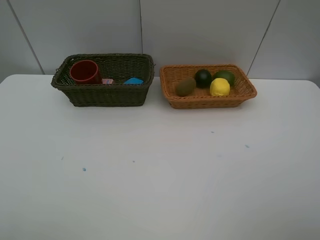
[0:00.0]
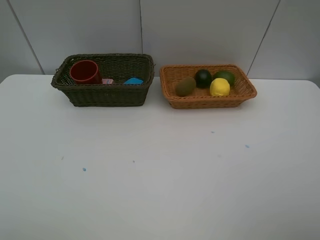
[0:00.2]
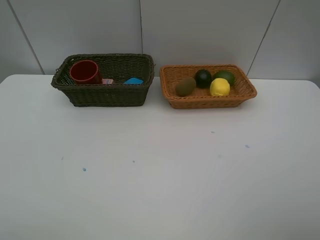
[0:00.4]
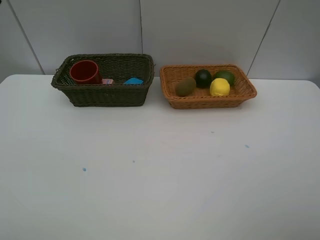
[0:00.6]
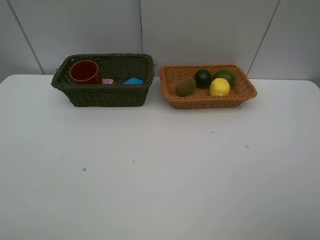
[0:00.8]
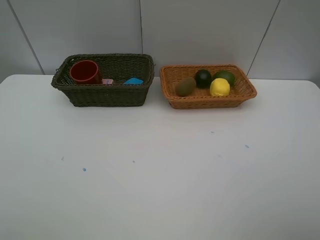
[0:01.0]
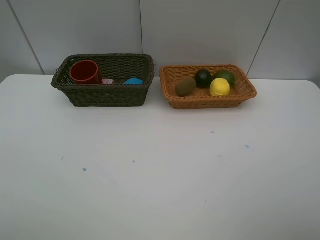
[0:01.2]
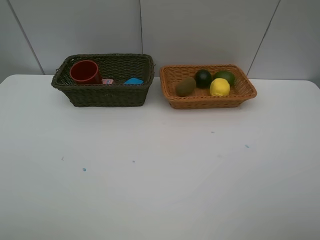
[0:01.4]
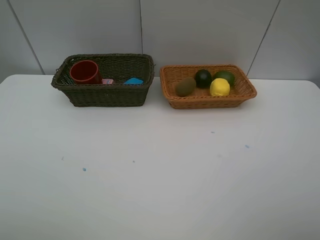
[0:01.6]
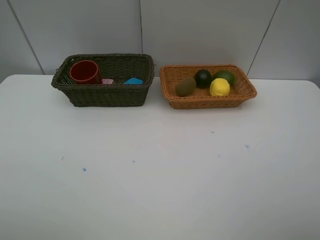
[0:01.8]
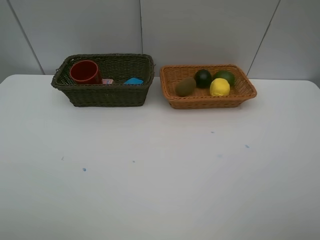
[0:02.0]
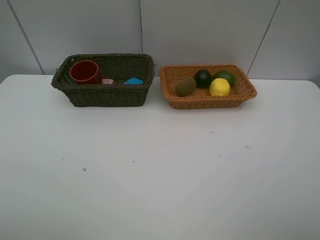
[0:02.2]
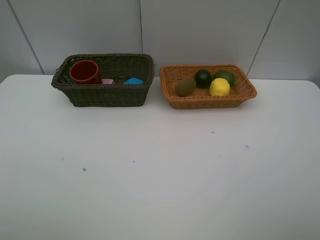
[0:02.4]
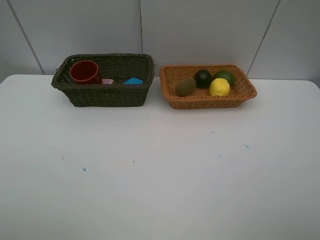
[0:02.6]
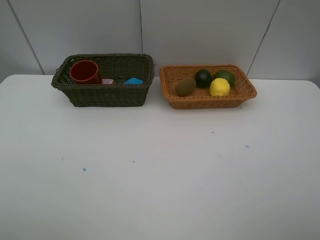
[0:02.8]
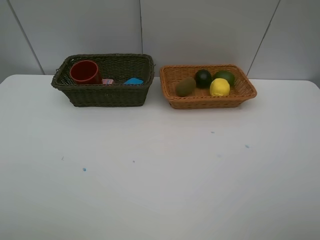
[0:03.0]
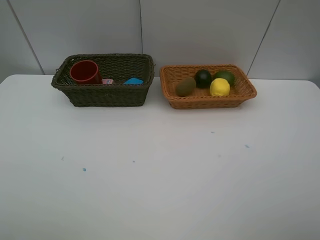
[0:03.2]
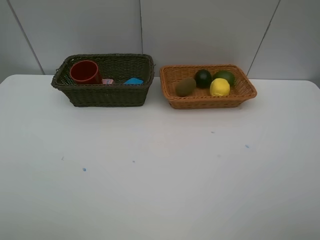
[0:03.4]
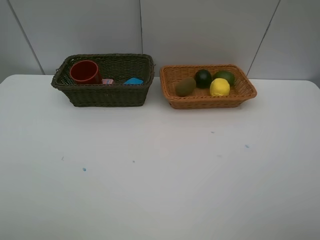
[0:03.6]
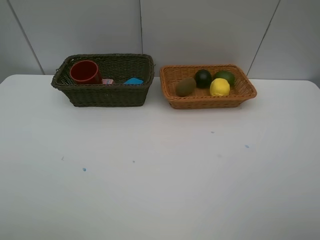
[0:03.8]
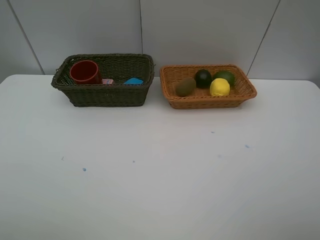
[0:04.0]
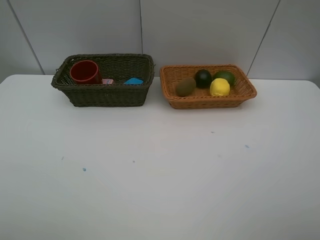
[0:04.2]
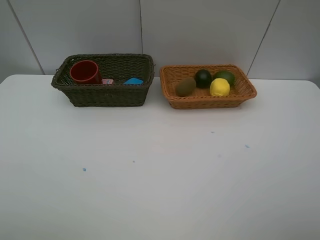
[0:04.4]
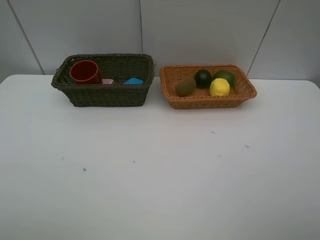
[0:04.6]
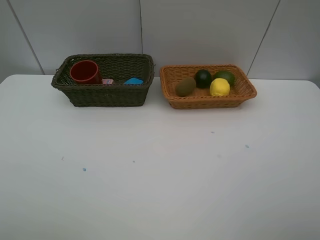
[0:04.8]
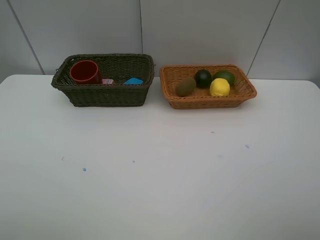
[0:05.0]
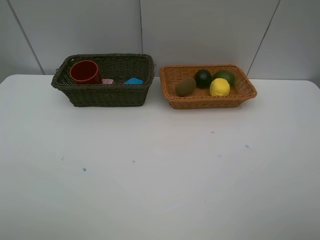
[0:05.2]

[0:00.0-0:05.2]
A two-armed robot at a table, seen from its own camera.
Task of the whole recording: Place multiple objects separately in different baskets.
3.4 to 5.2 s: Both grippers stay about where they are.

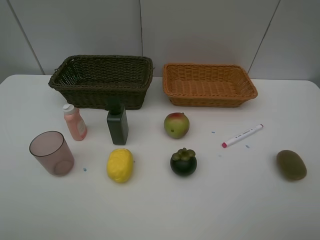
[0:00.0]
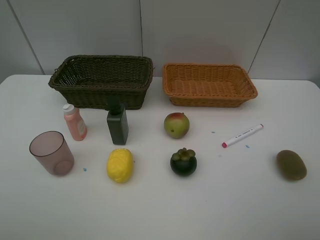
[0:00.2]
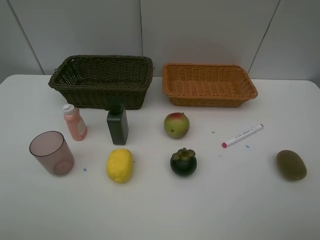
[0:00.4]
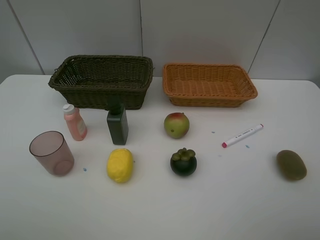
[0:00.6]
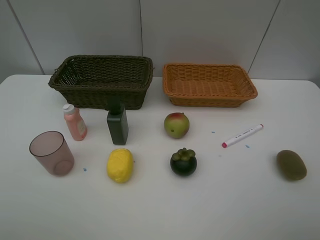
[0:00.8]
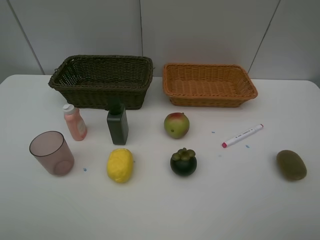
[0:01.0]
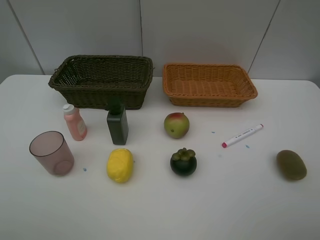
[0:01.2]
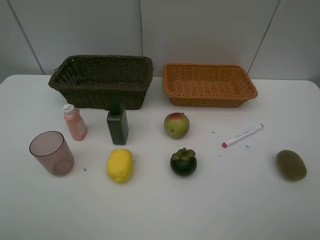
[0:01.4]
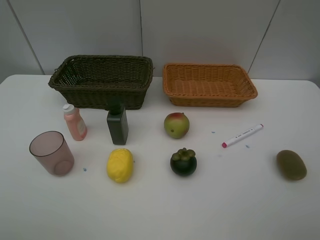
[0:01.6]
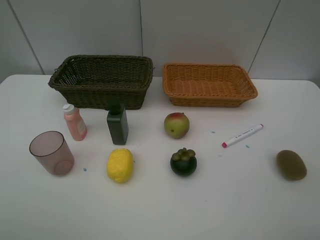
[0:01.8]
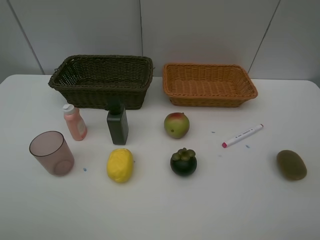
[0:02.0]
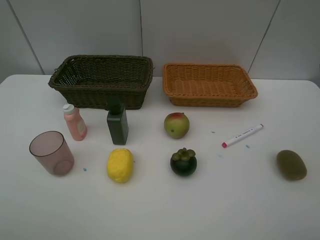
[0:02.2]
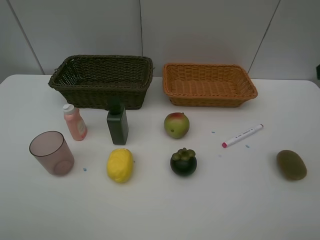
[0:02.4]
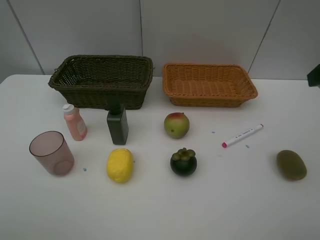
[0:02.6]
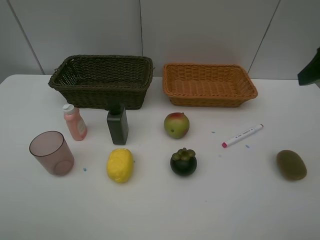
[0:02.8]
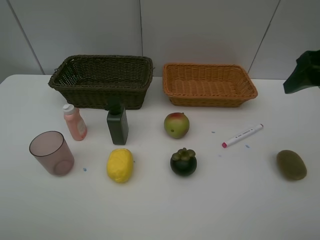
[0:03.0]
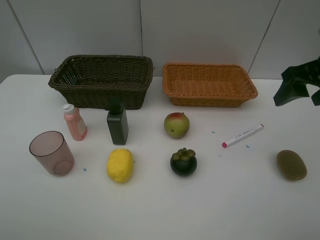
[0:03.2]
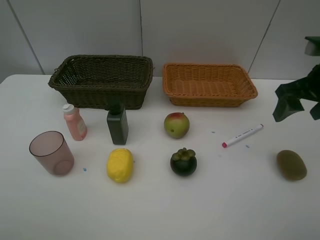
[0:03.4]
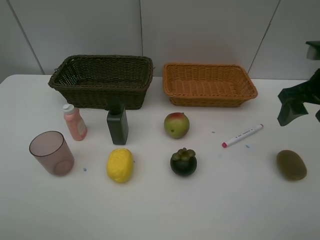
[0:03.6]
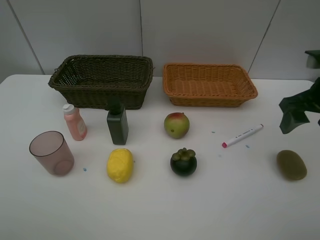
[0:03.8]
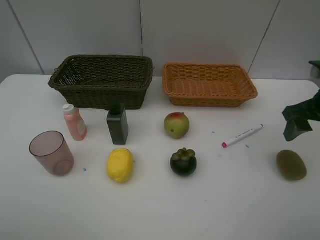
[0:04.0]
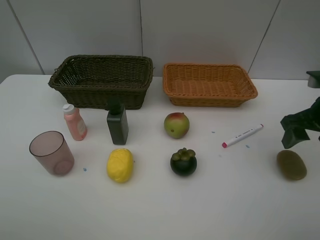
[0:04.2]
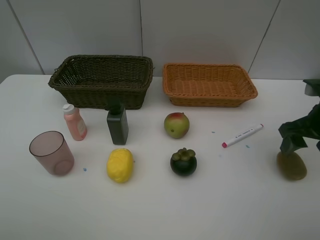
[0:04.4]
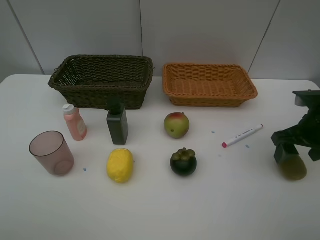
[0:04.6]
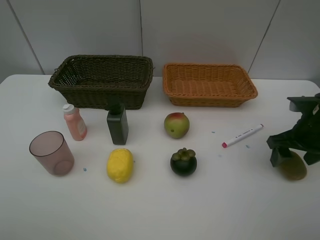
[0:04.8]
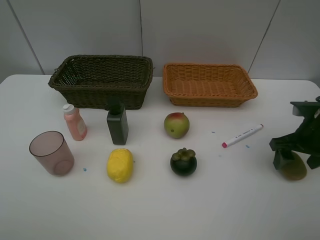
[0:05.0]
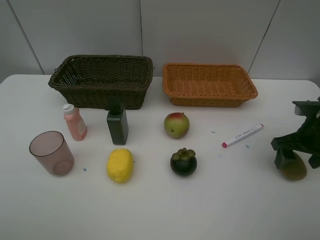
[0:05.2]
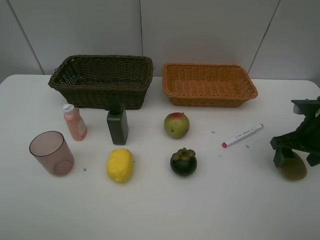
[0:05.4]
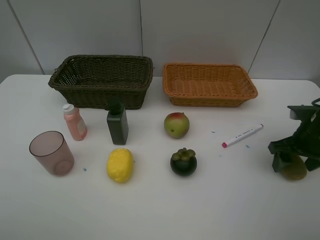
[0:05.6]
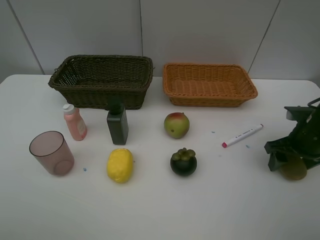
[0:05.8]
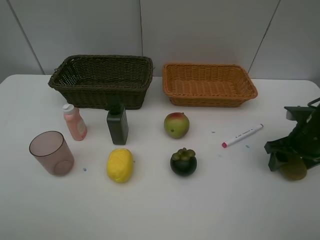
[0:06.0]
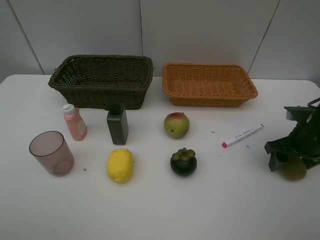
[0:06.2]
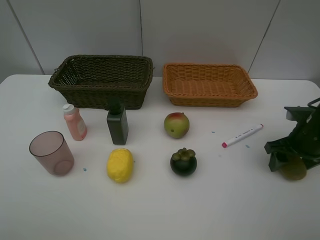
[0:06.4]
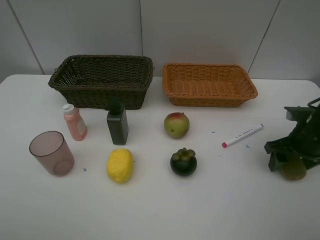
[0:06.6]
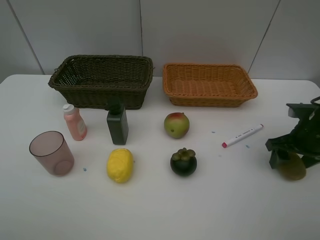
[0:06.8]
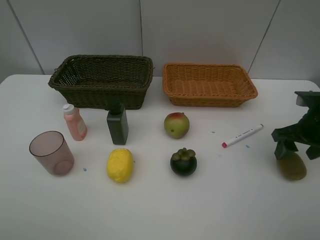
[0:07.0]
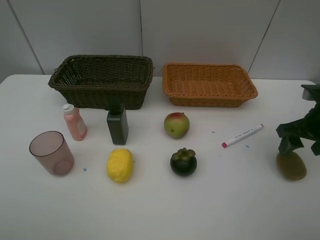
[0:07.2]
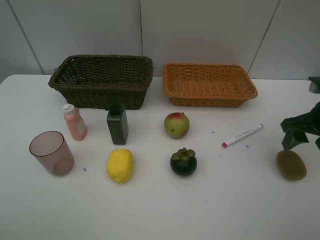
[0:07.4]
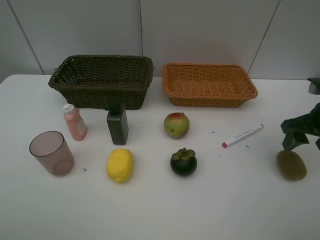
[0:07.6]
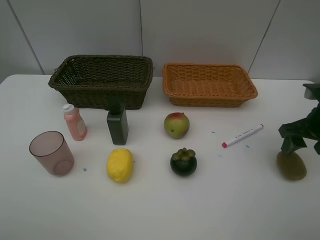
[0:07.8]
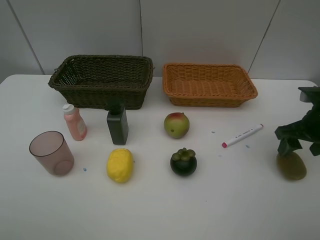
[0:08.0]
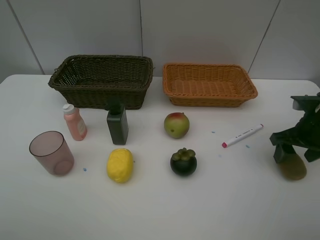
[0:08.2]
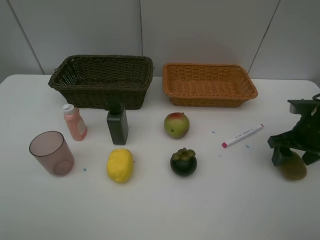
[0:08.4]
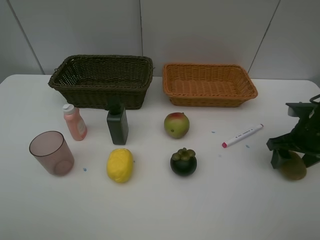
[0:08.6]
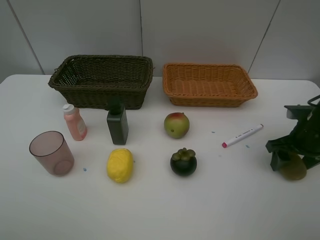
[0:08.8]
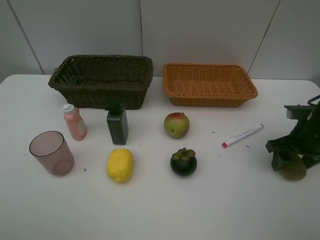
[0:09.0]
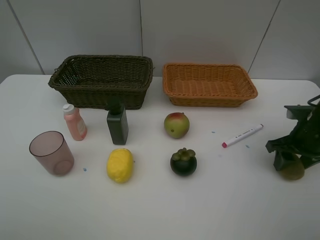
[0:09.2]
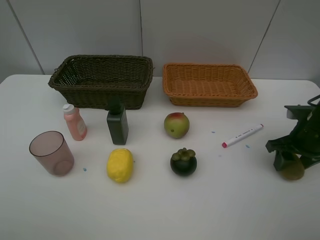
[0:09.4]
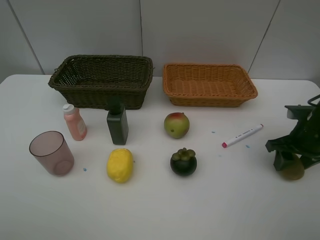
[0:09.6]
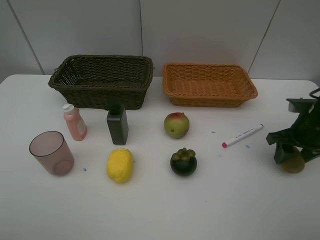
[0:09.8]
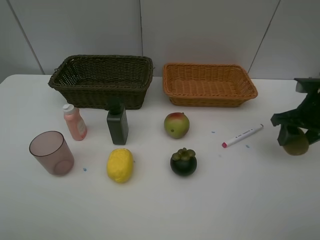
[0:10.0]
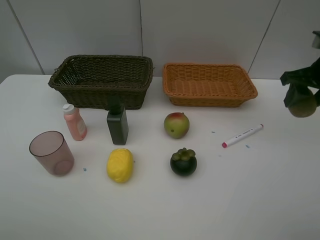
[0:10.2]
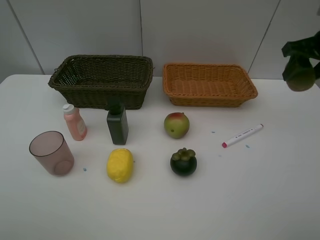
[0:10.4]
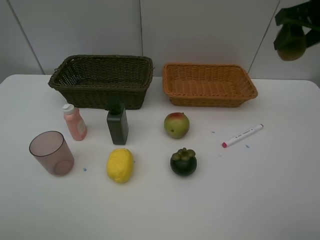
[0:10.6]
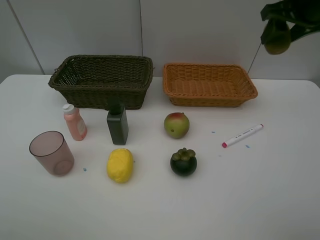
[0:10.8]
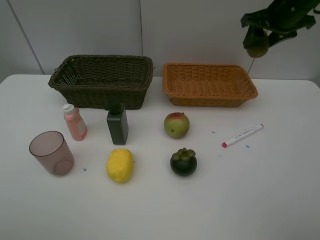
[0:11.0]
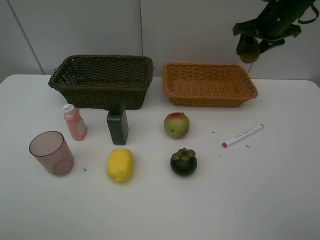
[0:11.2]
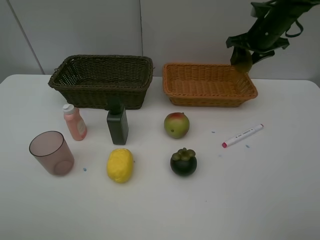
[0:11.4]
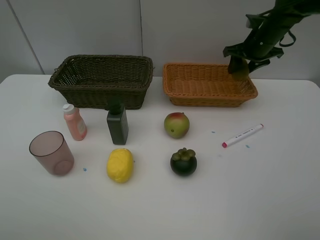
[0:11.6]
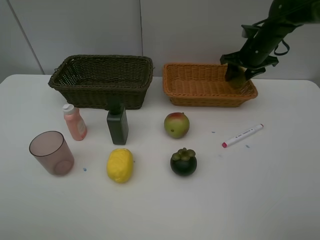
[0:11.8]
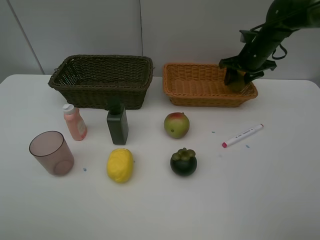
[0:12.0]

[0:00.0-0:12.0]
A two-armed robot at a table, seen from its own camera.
Task of the whole recording: Place multiple objects separately in different baskets.
Step, 0.0 to 9.8 s: Pick up kiwi with right gripper.
1.6 to 3.0 s: The right gripper shifts roughly 20 cm forward.
3.0 to 4.4 s: The right gripper travels downward by some 10 cm.
4.4 to 6.0 s: The right gripper goes roughly 5 cm downward.
6.0 to 7.6 s: The right gripper moves upward, approximately 5 cm.
7.6 to 9.0 s: The right gripper shifts about 5 cm downward.
9.0 to 10.4 s: The right gripper goes approximately 20 cm upward.
10.4 to 12.0 s: The right gripper goes roughly 20 cm forward and downward.

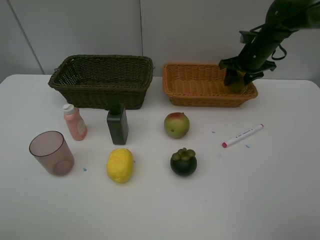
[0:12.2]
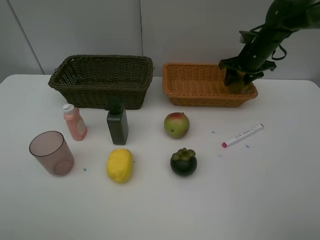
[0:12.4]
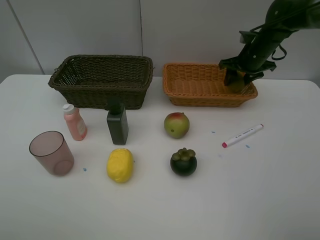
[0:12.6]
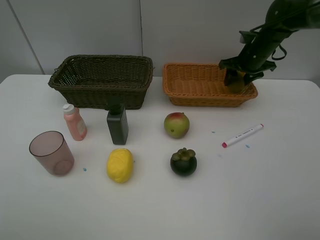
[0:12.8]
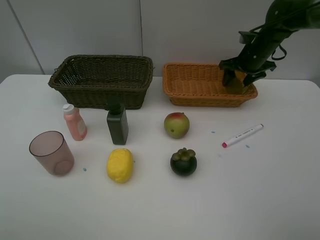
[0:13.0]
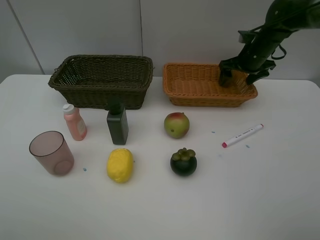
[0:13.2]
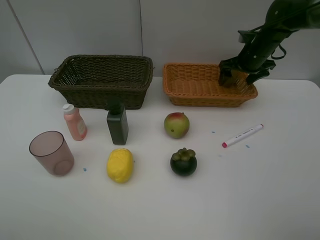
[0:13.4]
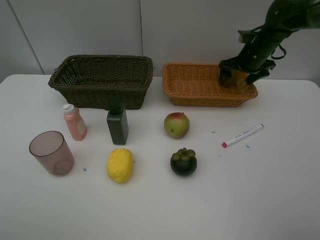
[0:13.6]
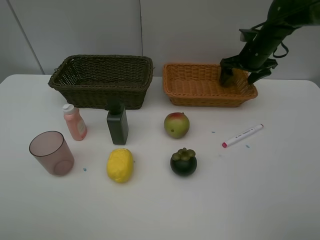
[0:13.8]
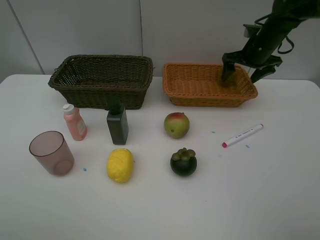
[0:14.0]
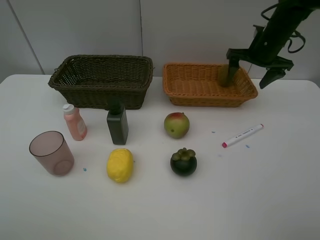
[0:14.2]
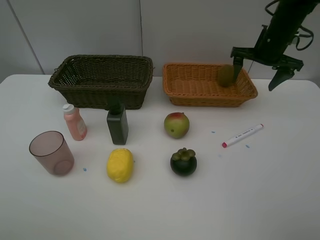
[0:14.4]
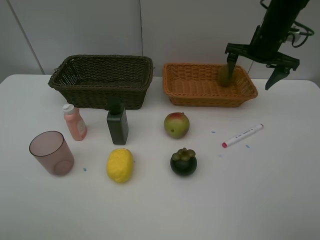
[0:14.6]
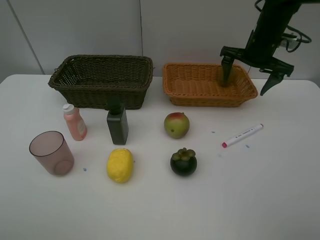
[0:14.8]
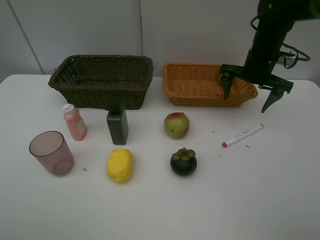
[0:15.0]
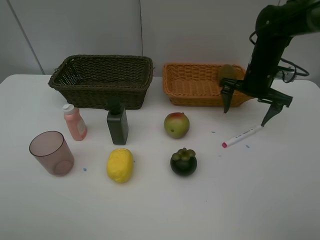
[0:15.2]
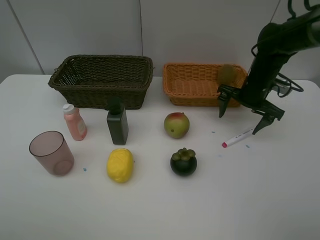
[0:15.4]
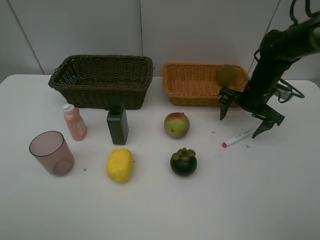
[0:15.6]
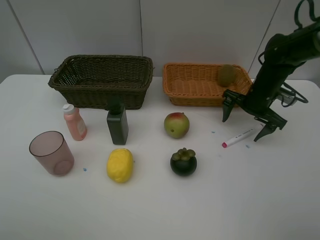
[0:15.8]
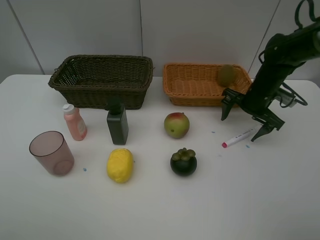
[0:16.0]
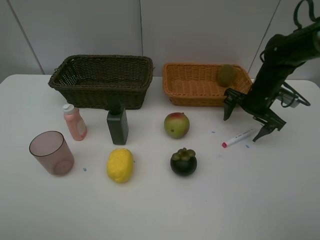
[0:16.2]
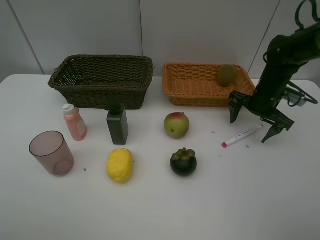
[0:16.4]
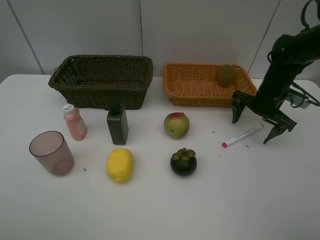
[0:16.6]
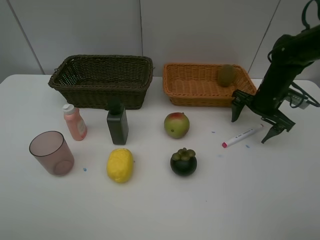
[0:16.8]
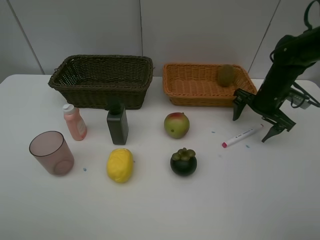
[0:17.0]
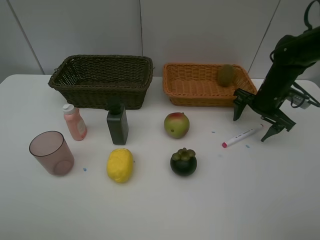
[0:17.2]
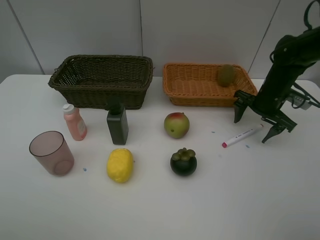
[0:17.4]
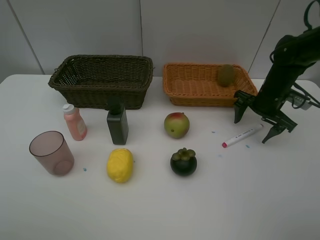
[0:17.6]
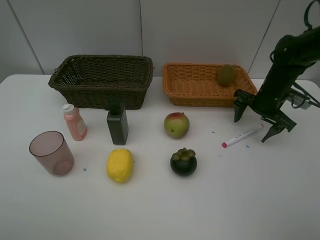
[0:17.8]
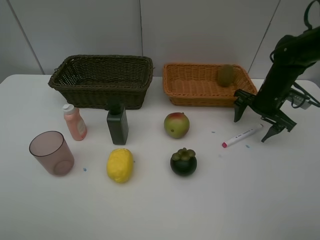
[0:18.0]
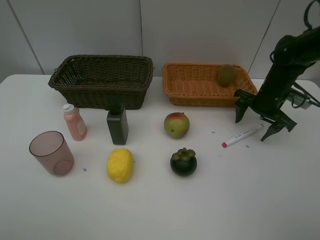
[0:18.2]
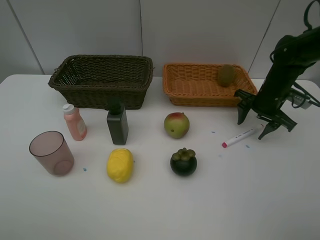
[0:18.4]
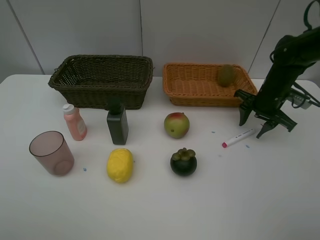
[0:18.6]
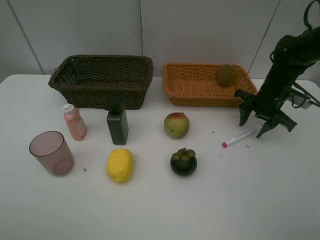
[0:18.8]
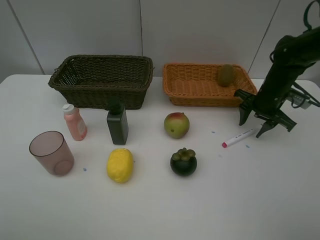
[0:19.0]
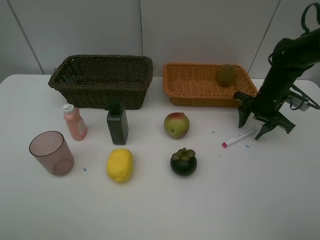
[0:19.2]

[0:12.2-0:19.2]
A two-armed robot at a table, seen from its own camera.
Task of the whole recording: Place multiple objects separately in different baskets.
Step, 12.2 to 14.4 s: Place the kiwi in the light basket with right gripper.
13.6 to 15.0 s: The right gripper shifts some 5 cm backward.
15.0 to 16.4 s: The right gripper moves downward, some 5 cm.
16.4 to 17.8 s: The grippers move only a little.
17.8 to 19.2 s: The right gripper closes.
